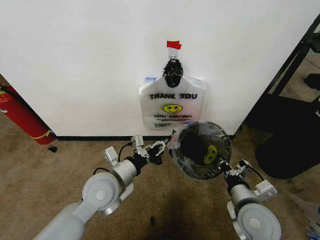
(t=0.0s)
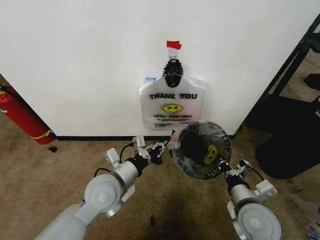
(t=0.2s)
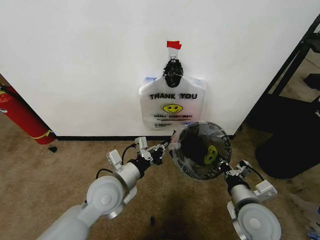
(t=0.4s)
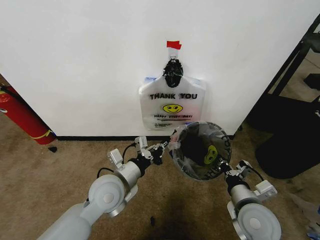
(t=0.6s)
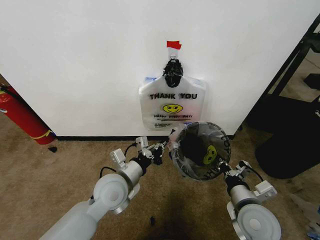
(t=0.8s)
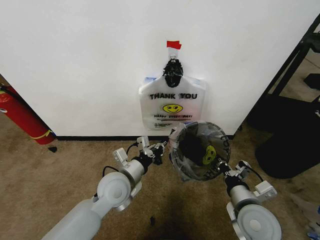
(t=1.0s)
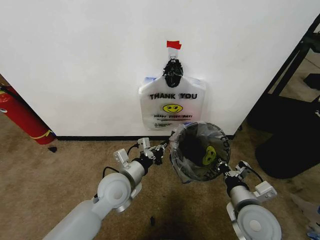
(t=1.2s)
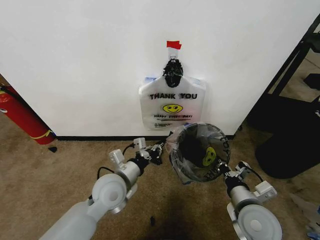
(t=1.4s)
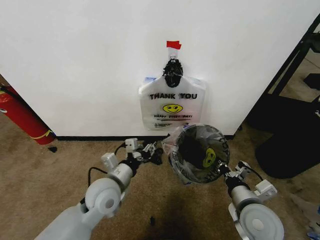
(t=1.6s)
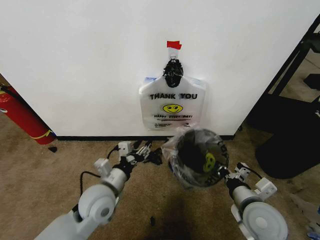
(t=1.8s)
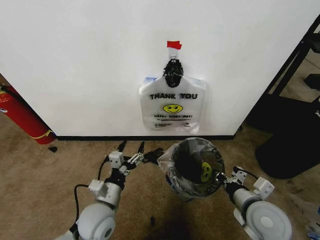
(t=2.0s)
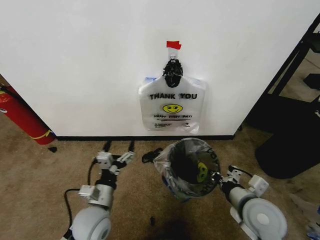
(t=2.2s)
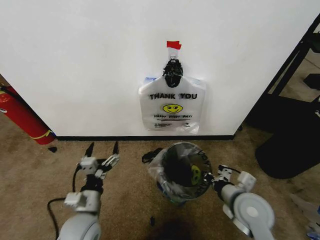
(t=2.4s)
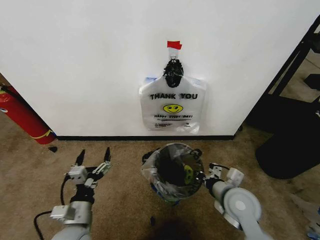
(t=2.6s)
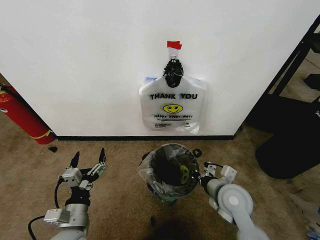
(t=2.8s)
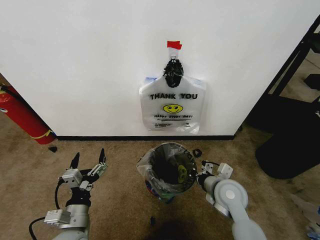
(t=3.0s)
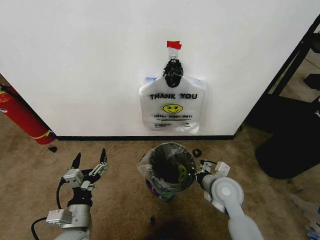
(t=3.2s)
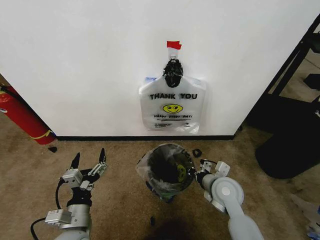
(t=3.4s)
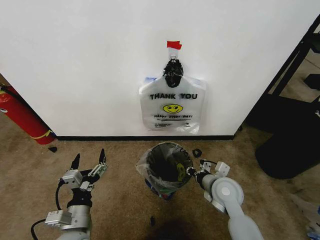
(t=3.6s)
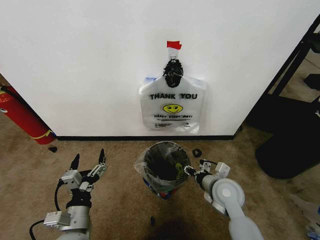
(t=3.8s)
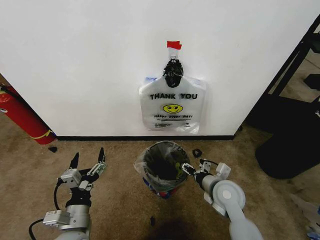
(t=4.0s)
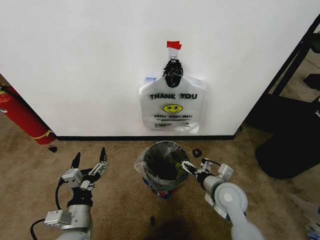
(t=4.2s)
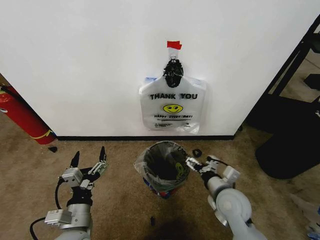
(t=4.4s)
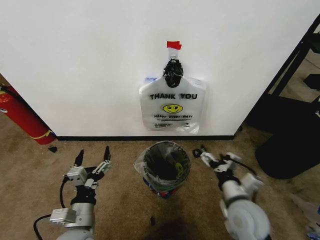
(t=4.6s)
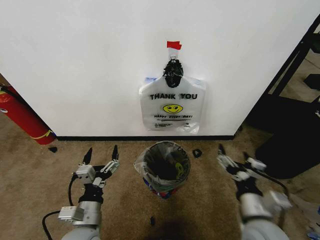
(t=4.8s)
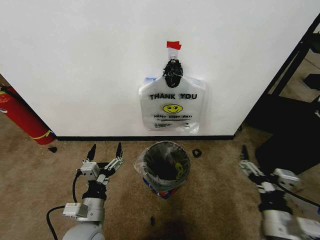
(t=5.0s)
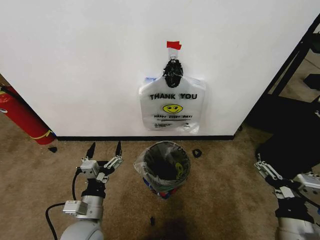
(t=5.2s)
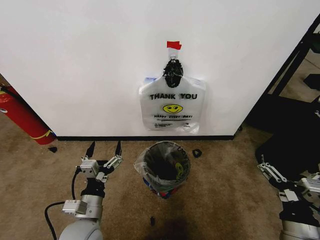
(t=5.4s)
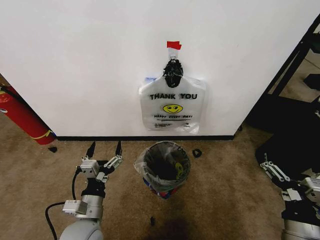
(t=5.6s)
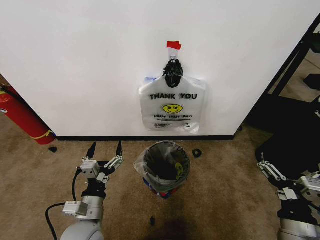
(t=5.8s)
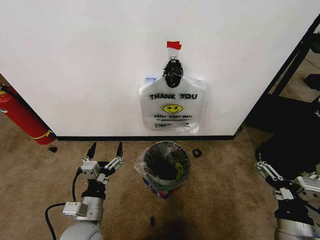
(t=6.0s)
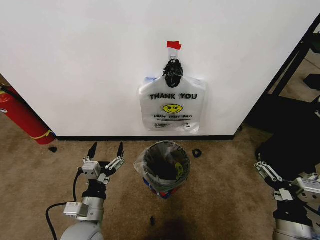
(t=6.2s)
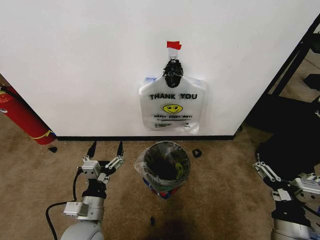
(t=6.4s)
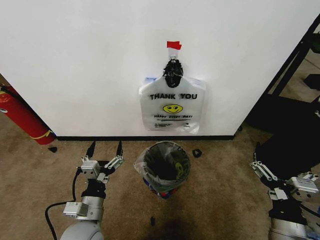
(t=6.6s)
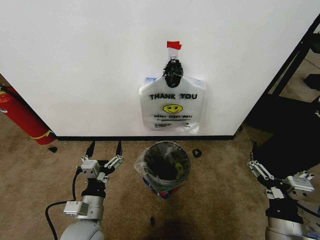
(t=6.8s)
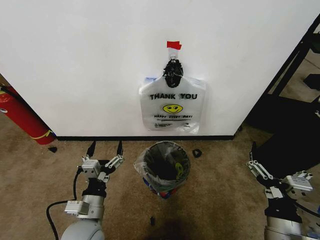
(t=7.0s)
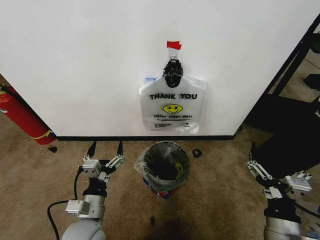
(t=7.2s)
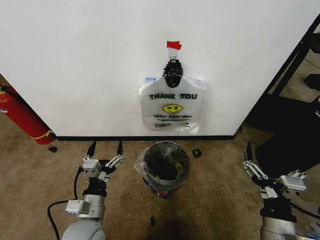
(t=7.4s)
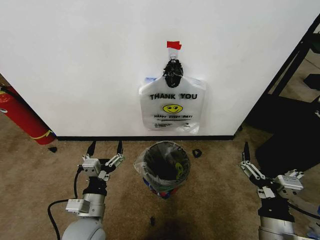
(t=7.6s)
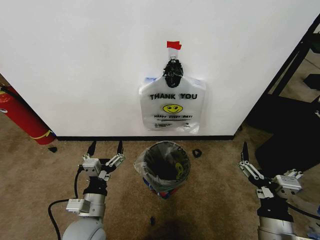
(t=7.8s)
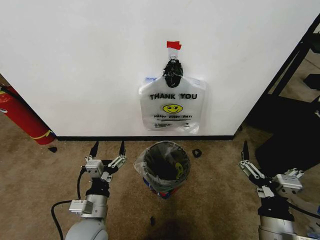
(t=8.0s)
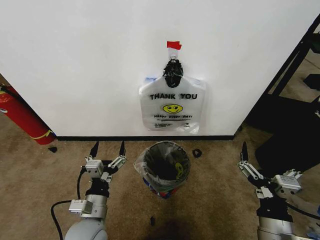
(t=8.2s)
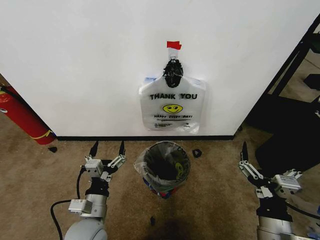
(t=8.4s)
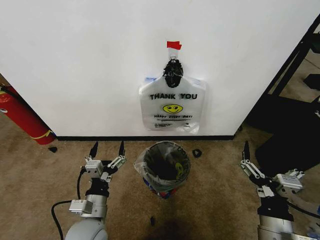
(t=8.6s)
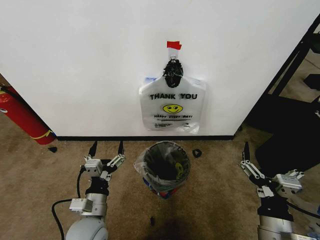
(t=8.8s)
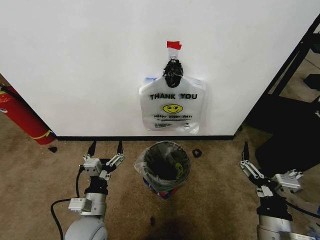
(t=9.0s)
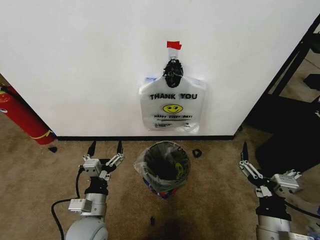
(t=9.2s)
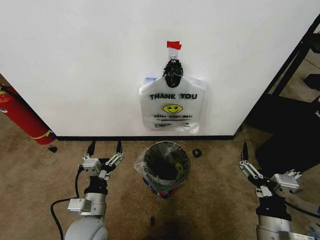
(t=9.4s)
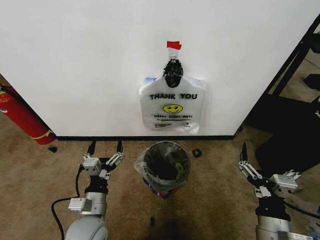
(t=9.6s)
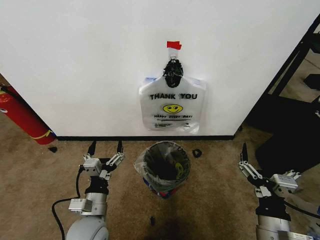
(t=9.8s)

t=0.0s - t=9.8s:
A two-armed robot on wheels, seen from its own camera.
Task of the whole recording: Pick up the garbage bag from the wall and place it over the trash bin.
t=0.0s - t=1.4s: The grippers make only small movements.
t=1.4s - t=2.8s: The left gripper heads backward, to the left and downward, covering approximately 15 cm, and opens up. Meanwhile the right gripper moves forward, some 5 cm.
t=2.8s - t=4.2s: The right gripper opens its fingers.
t=4.2s - t=5.6s: The right gripper heads backward and to the right, covering about 20 cm.
t=5.6s - t=8.4s: The grippers move only a little.
t=8.4s - t=9.8s: The two grippers keep their place.

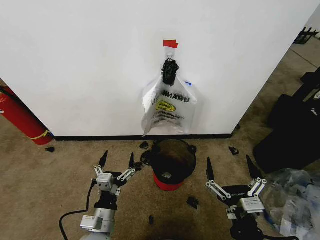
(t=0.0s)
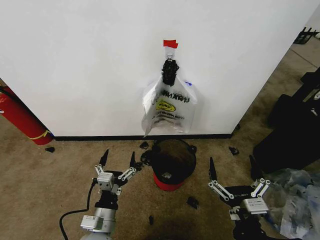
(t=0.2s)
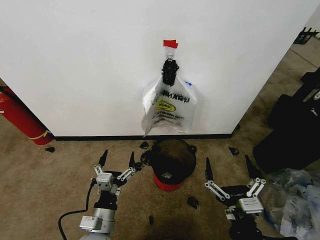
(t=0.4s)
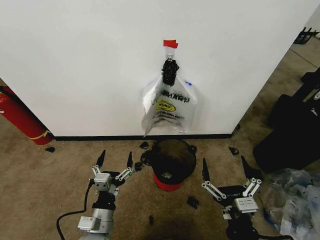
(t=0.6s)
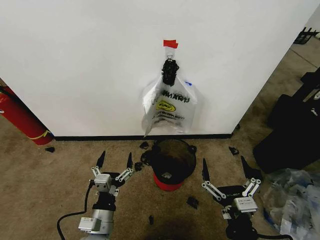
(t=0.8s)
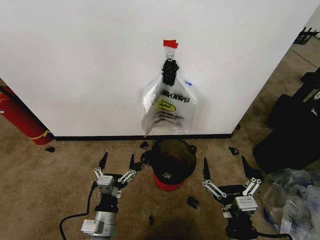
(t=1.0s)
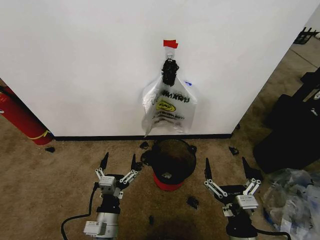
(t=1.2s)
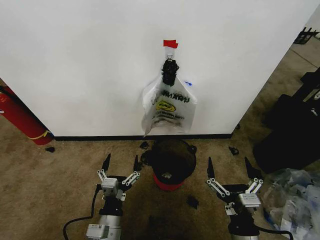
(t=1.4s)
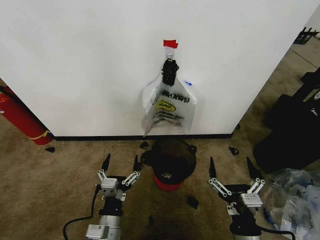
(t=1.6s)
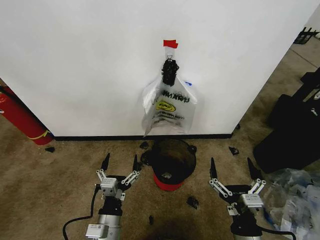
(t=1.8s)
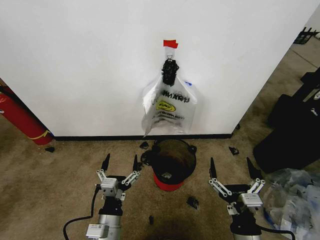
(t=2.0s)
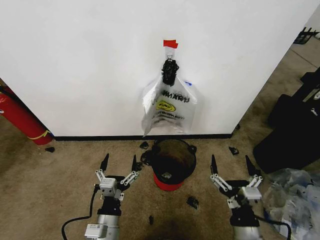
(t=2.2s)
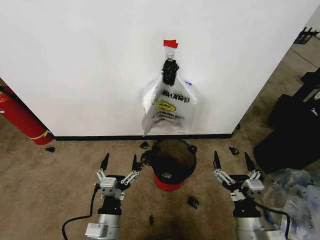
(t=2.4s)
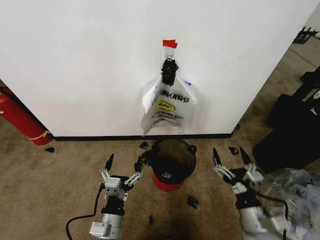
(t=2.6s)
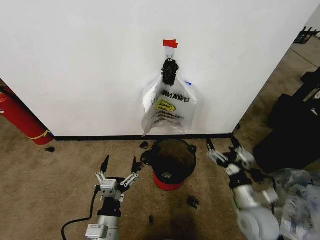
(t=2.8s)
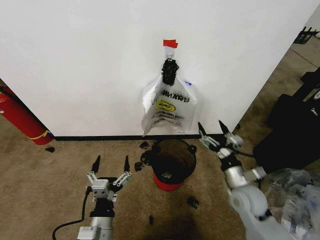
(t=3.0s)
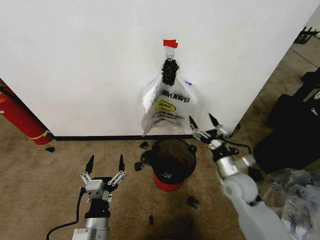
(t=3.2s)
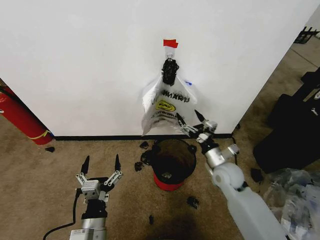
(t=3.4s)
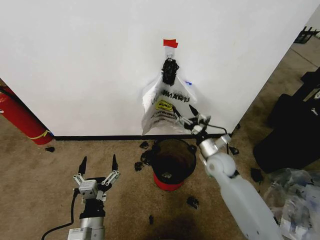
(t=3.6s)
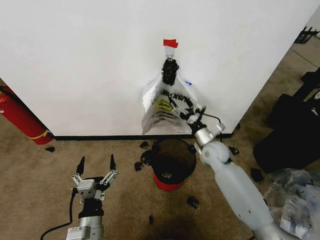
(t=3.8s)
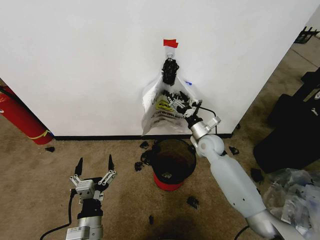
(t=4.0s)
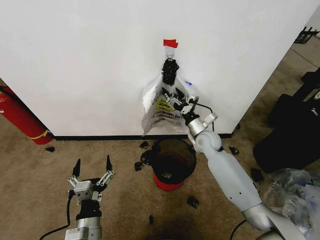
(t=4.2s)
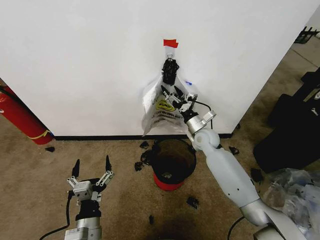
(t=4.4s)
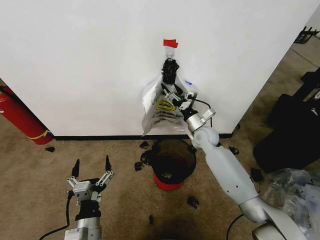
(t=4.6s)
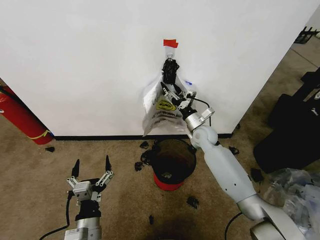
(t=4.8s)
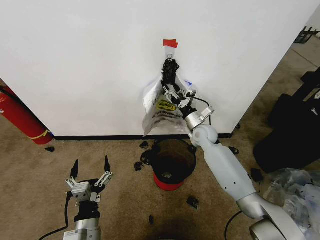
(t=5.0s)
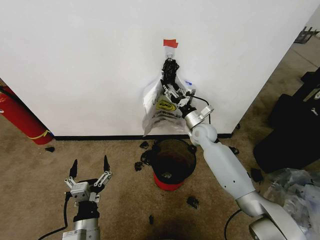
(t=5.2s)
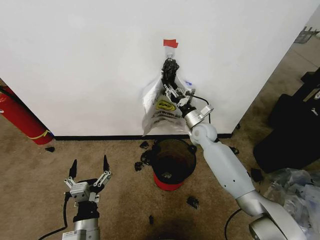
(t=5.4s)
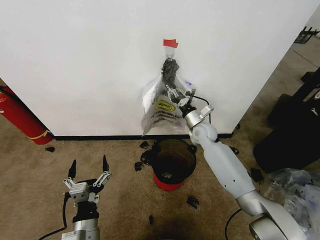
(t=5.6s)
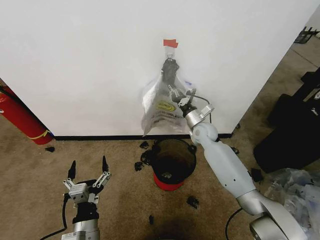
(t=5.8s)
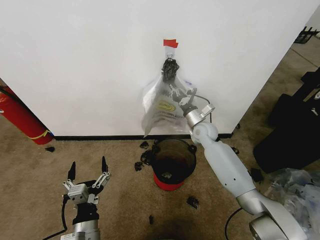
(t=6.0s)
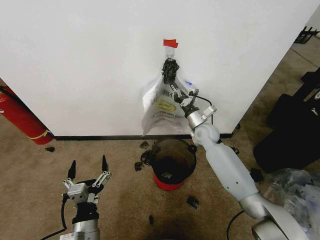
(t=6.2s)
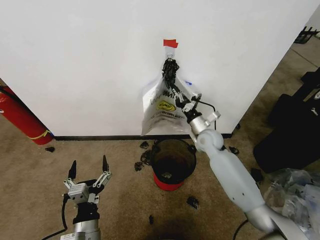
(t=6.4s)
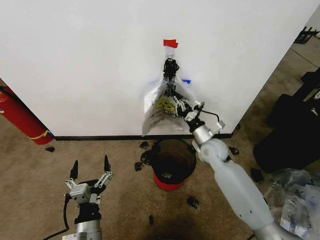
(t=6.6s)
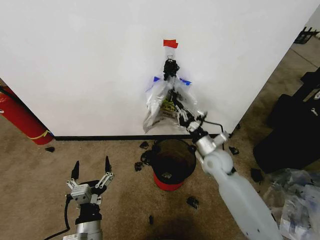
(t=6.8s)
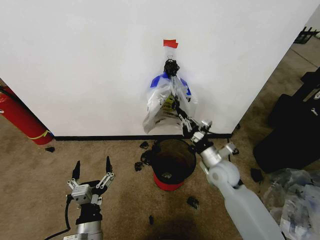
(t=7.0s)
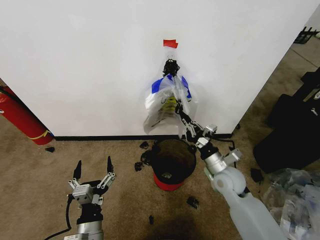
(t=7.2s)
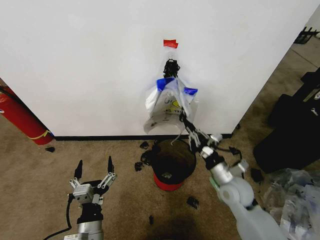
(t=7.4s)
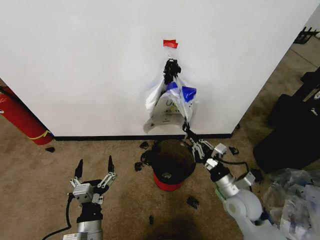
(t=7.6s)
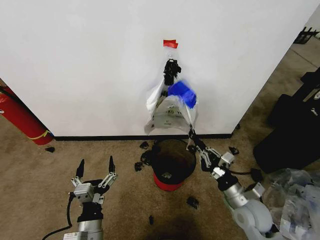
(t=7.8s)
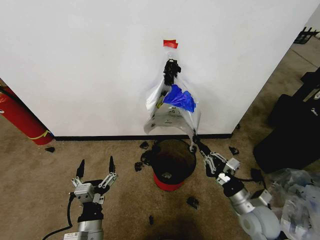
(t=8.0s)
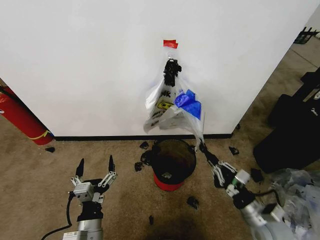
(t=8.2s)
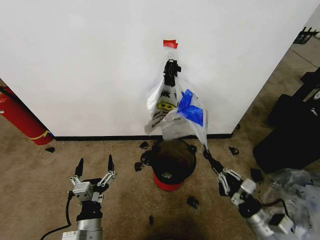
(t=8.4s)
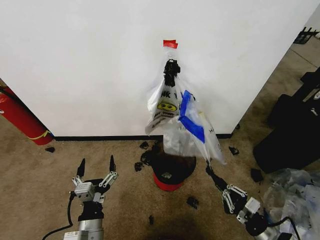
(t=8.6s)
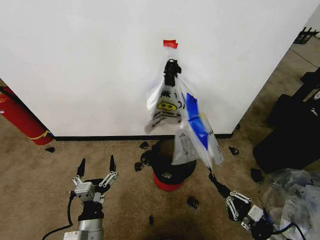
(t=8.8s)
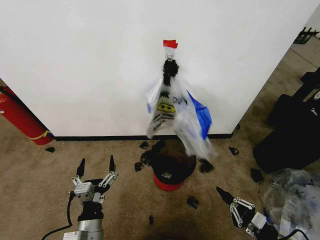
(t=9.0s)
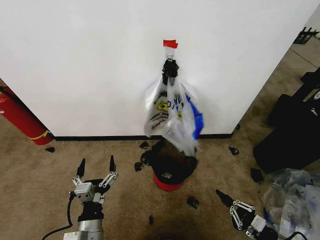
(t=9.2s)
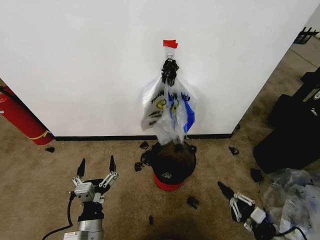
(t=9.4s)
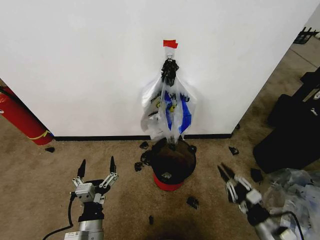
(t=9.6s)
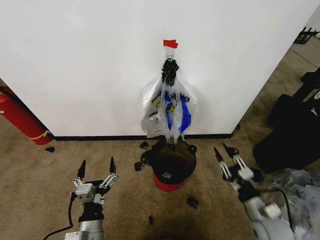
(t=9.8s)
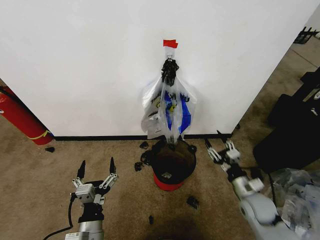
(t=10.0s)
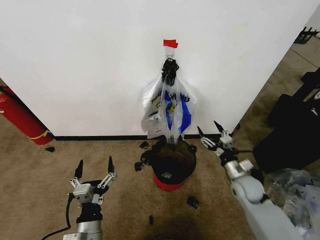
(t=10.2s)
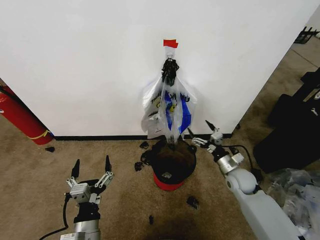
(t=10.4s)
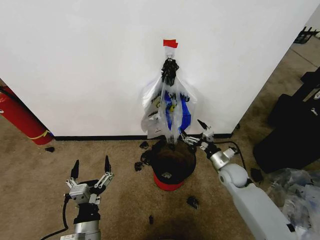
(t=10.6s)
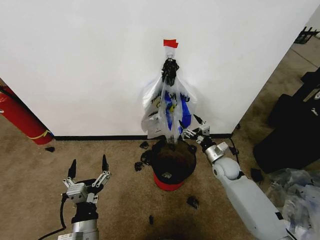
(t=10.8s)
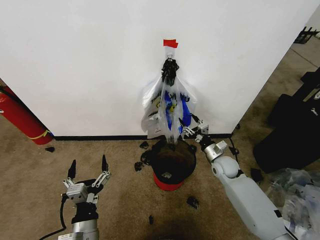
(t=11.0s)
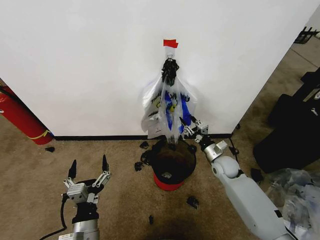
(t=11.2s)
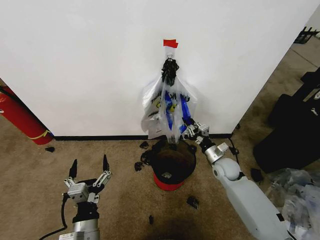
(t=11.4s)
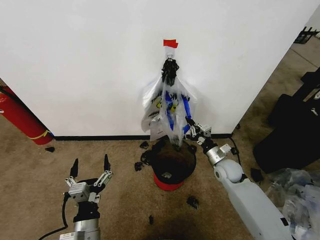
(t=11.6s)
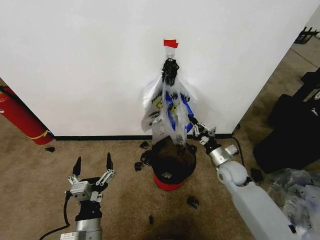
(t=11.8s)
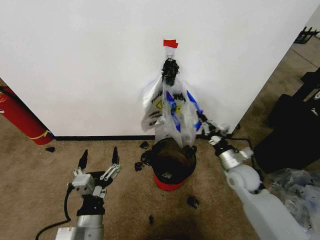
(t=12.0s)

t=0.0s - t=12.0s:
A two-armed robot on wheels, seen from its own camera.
Task of the whole recording: Pick up the garbage bag from the wall and place it over the trash bin.
t=1.6s - t=3.0s: The right gripper moves forward, approximately 20 cm.
t=3.0s - t=4.4s: The right gripper goes approximately 25 cm forward.
t=4.4s - t=6.0s: The right gripper closes.
t=6.0s - t=7.6s: The right gripper heads backward, covering approximately 25 cm.
t=7.6s - t=9.0s: The right gripper is displaced backward, to the right and downward by about 20 cm.
t=9.0s - t=10.4s: The right gripper shifts some 25 cm forward, and opens up.
t=10.4s - t=12.0s: The right gripper goes about 5 cm upward, and closes its fingers.
